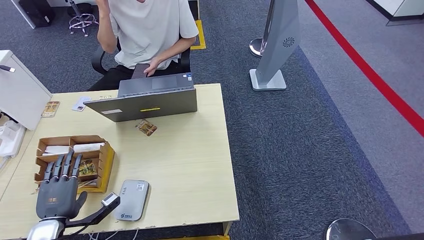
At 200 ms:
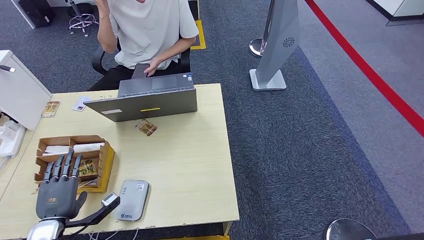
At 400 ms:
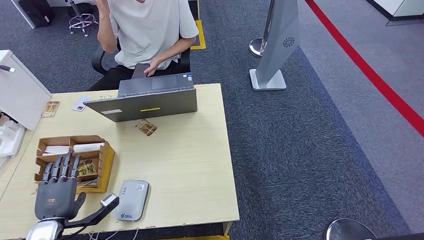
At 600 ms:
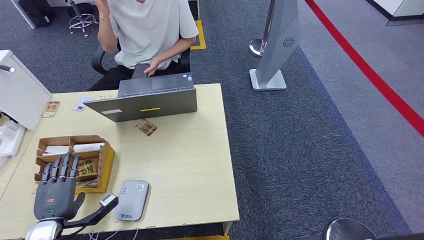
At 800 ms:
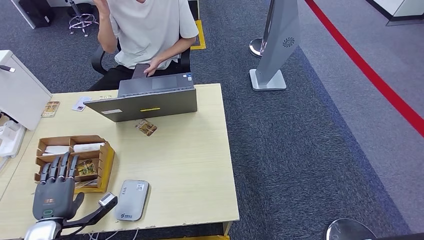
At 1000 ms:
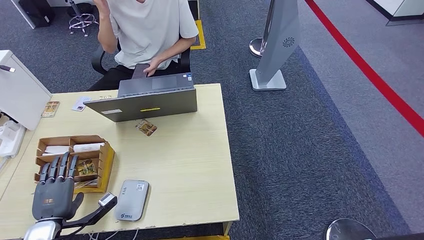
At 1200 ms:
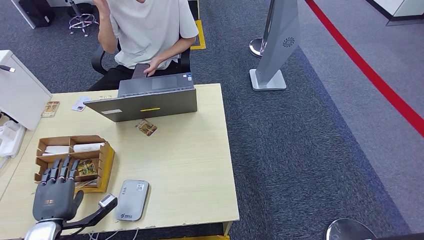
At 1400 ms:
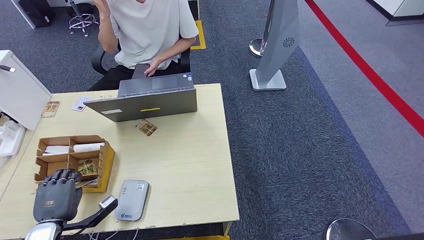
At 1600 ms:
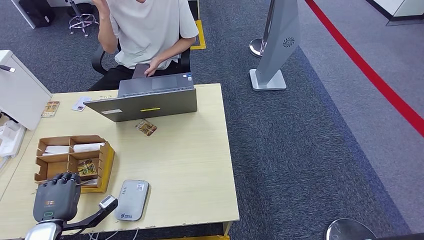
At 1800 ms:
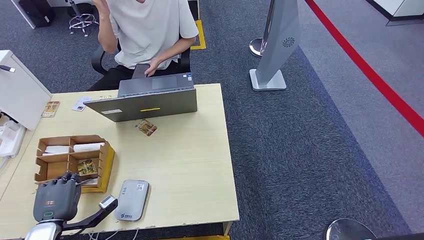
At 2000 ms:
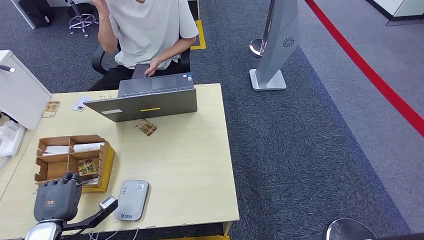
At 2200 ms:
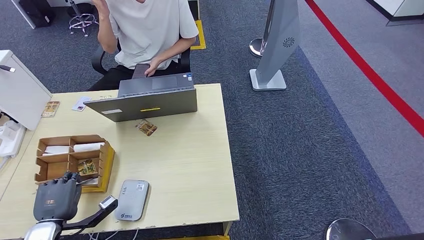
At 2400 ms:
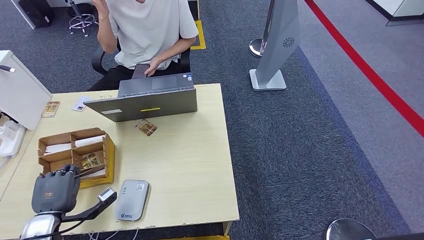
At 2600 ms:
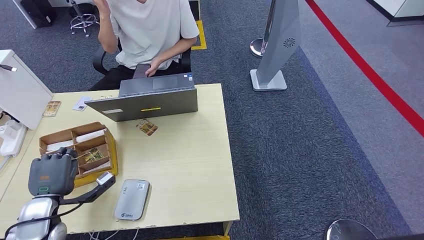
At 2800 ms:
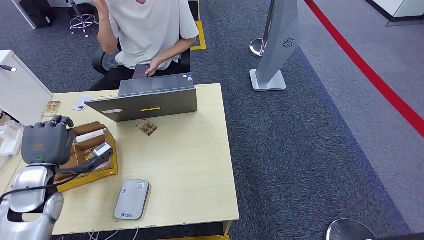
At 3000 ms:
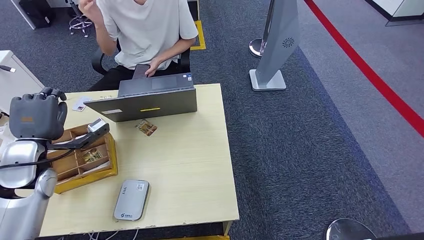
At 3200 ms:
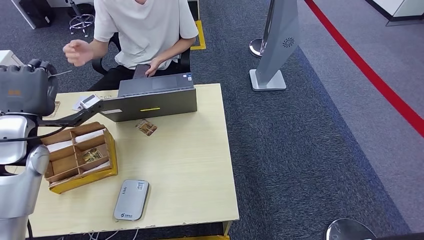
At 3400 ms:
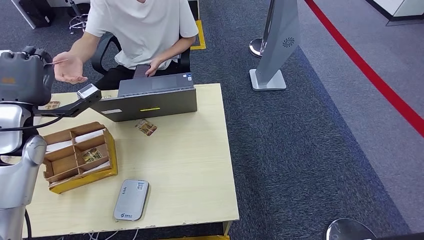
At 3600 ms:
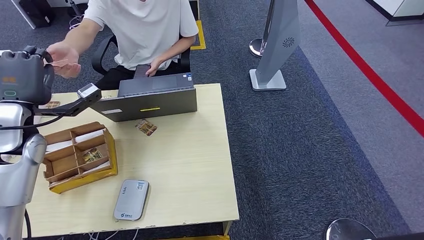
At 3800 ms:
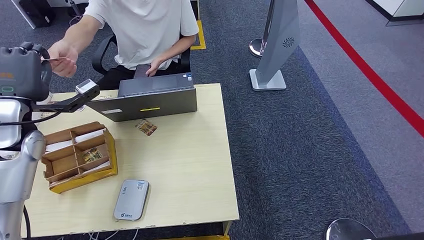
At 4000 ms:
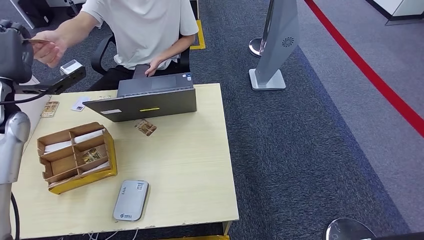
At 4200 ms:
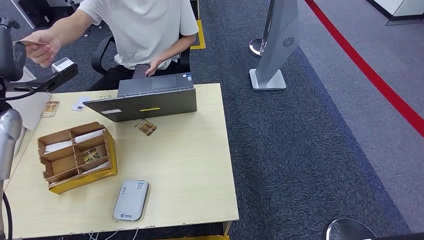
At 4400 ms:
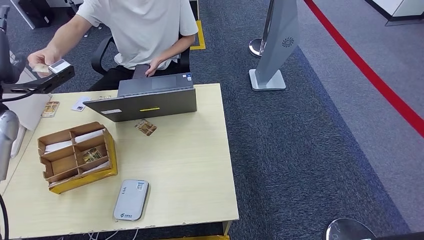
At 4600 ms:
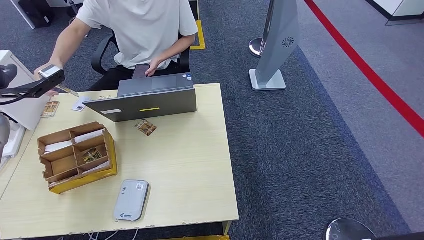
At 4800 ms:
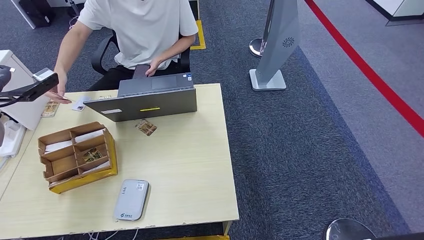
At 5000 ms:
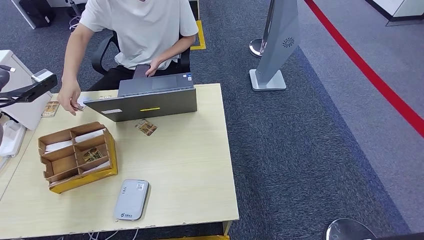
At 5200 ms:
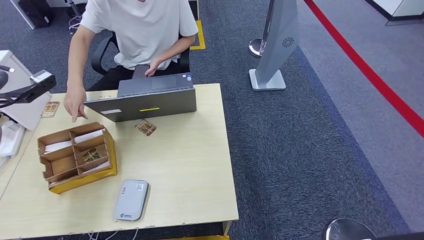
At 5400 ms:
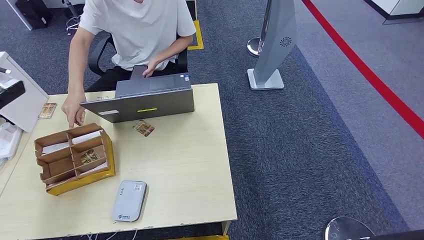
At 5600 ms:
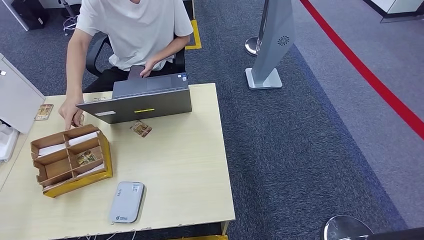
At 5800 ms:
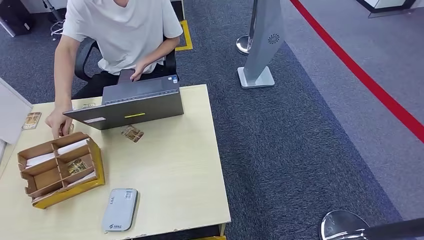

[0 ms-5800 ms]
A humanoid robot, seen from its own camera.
Step, 1000 ms to 3000 ms: Pick up the room key from the key card box.
Step, 3400 ms to 5600 ms: Hand the room key to the person.
0 ms to 1400 ms: Both hands stay put.
1400 ms to 2800 ms: The left hand travels upward and forward by some 15 cm.
2800 ms to 4400 ms: The left hand travels upward and forward by some 20 cm.

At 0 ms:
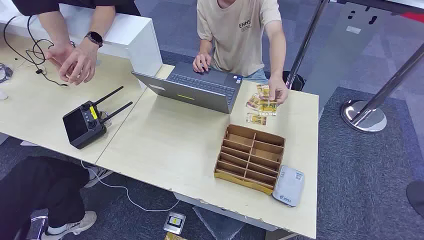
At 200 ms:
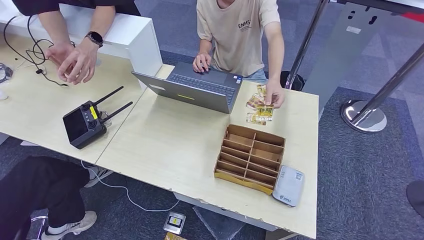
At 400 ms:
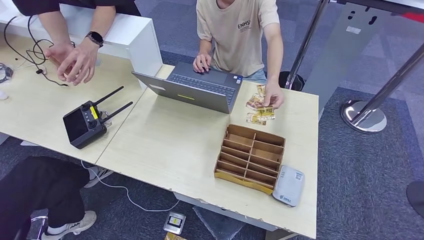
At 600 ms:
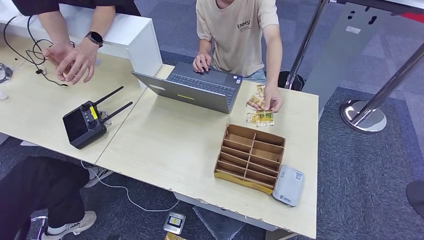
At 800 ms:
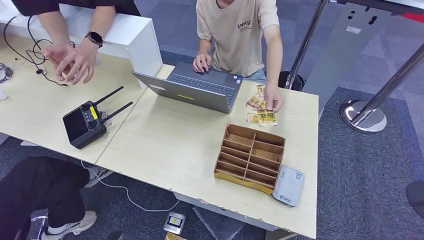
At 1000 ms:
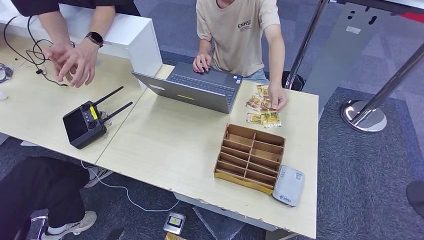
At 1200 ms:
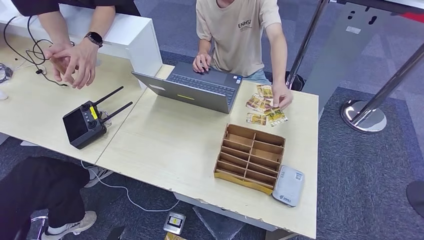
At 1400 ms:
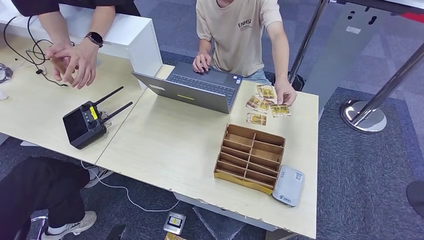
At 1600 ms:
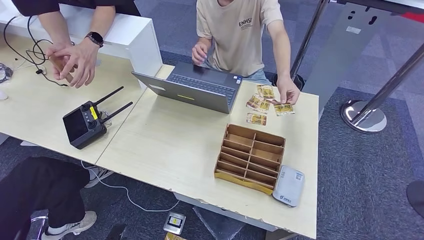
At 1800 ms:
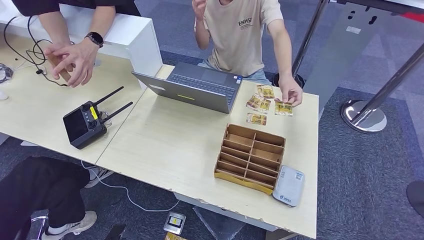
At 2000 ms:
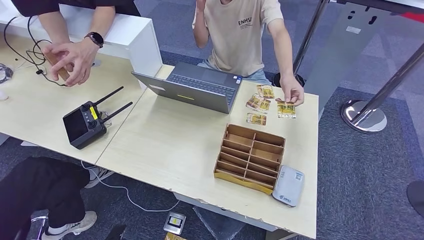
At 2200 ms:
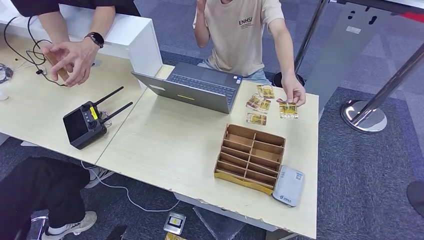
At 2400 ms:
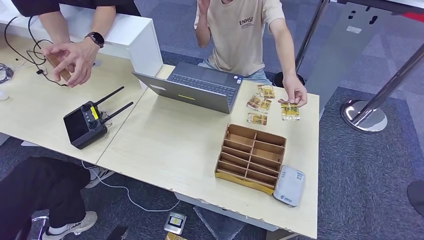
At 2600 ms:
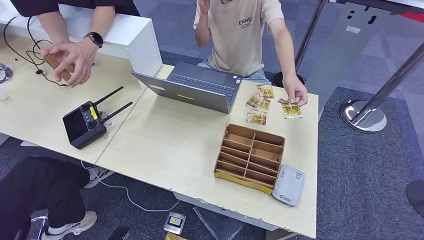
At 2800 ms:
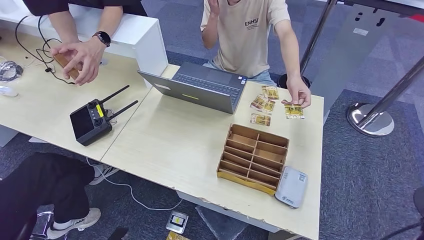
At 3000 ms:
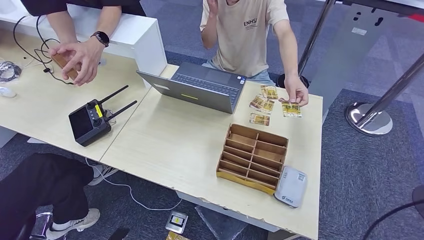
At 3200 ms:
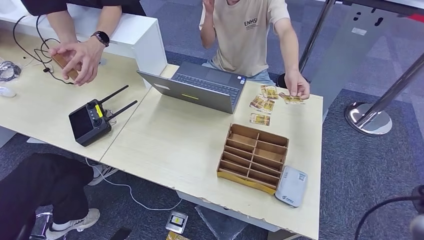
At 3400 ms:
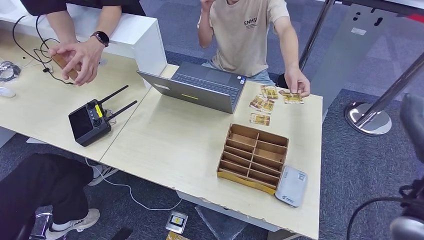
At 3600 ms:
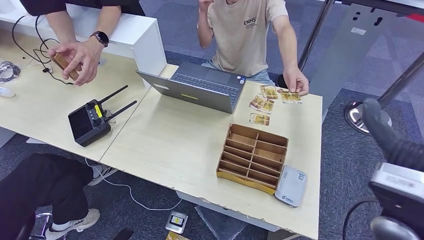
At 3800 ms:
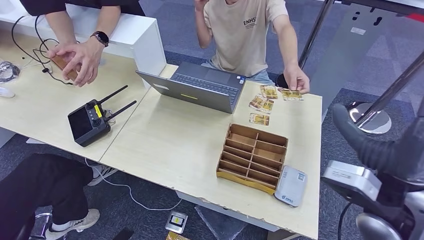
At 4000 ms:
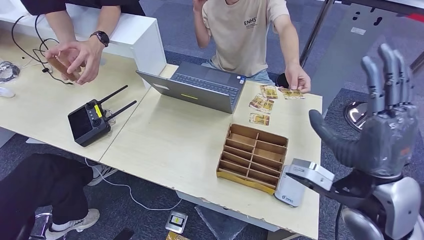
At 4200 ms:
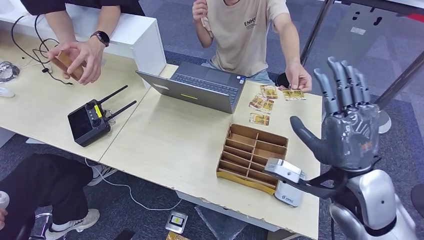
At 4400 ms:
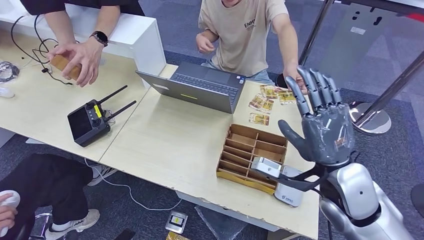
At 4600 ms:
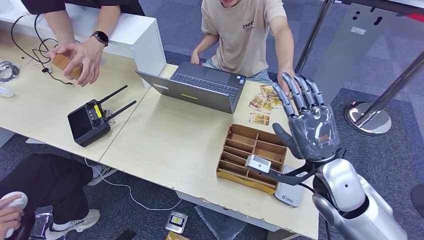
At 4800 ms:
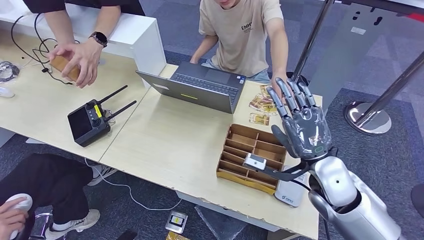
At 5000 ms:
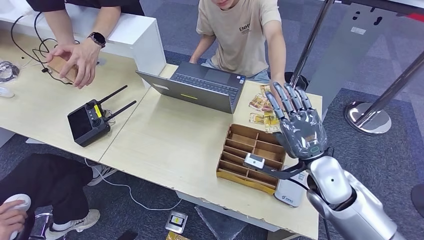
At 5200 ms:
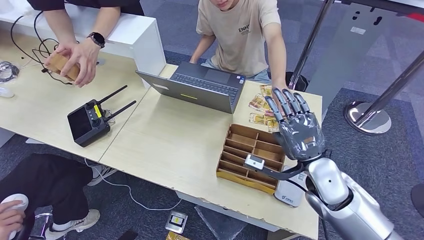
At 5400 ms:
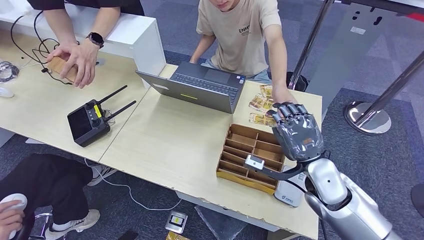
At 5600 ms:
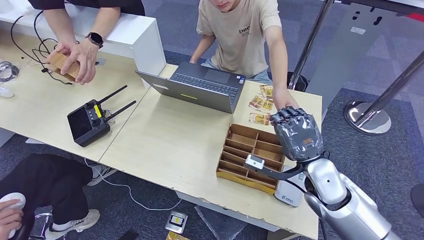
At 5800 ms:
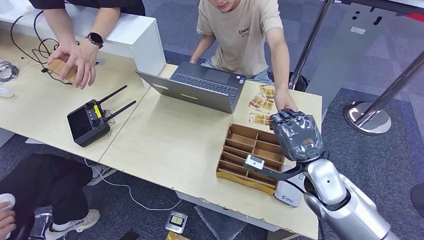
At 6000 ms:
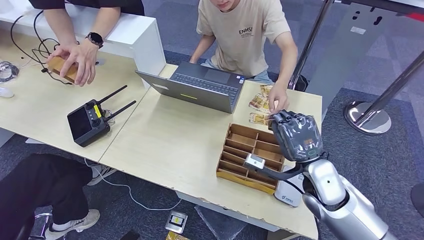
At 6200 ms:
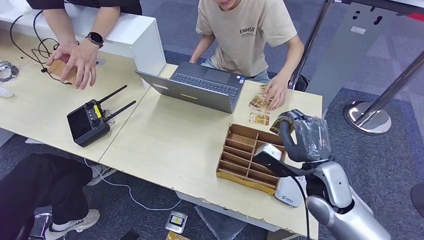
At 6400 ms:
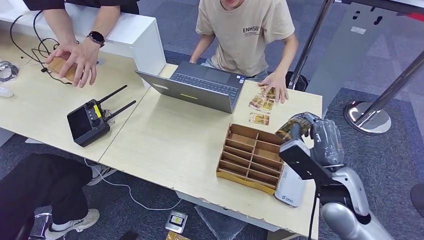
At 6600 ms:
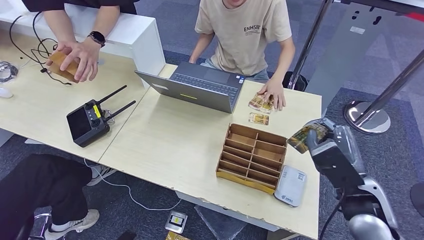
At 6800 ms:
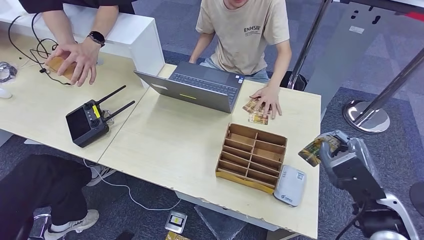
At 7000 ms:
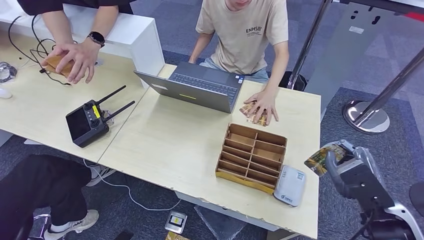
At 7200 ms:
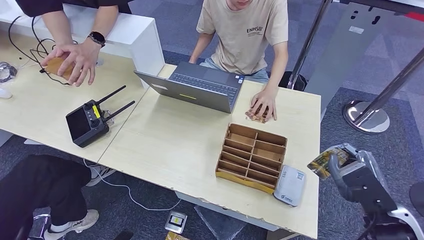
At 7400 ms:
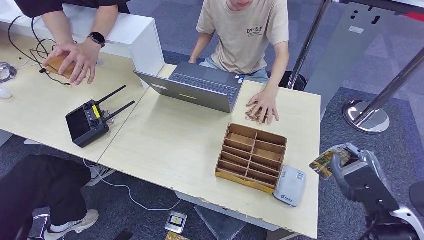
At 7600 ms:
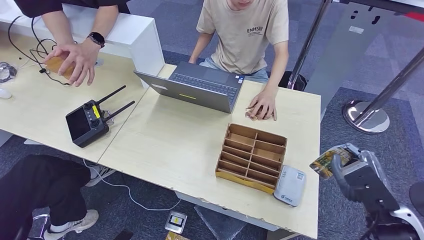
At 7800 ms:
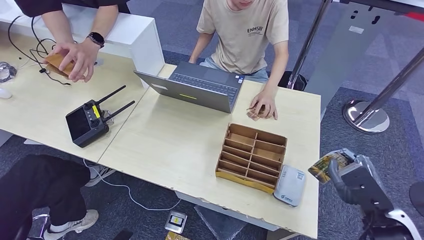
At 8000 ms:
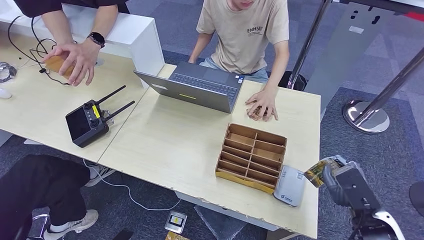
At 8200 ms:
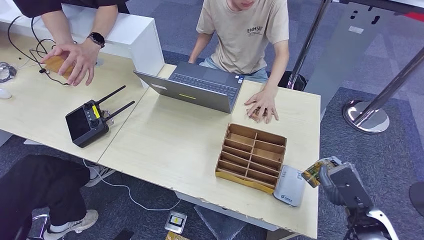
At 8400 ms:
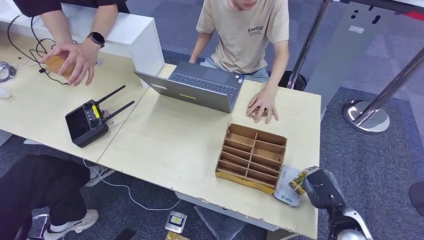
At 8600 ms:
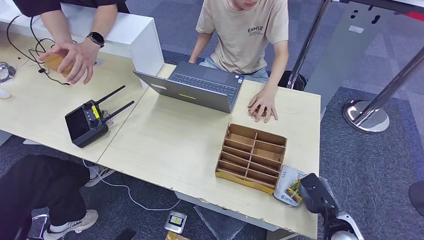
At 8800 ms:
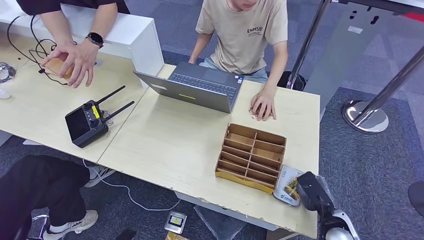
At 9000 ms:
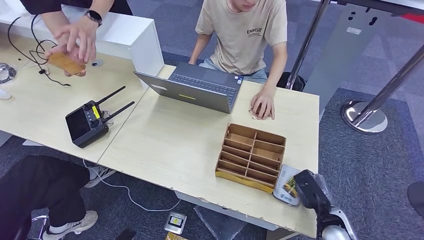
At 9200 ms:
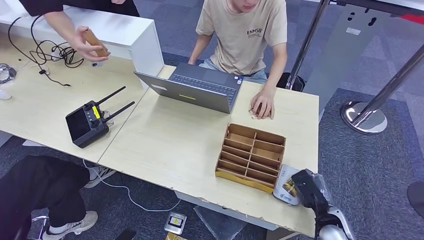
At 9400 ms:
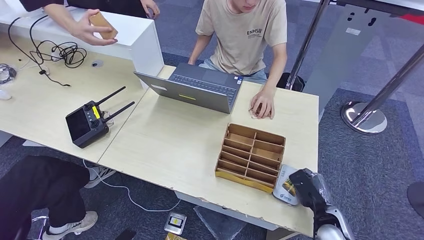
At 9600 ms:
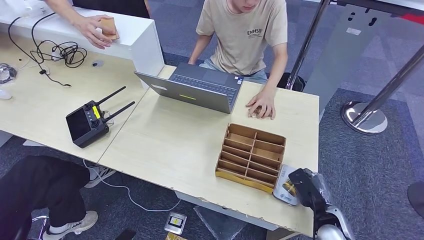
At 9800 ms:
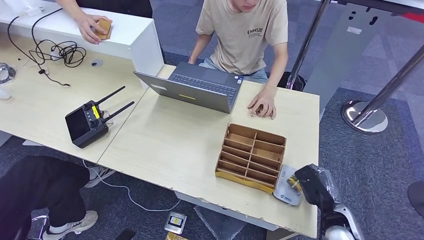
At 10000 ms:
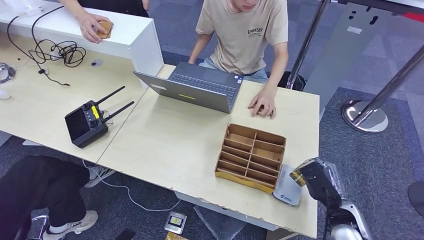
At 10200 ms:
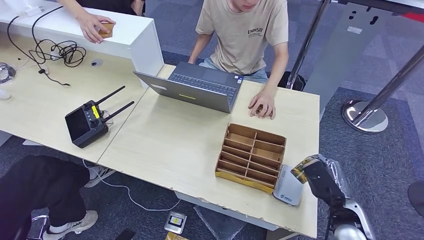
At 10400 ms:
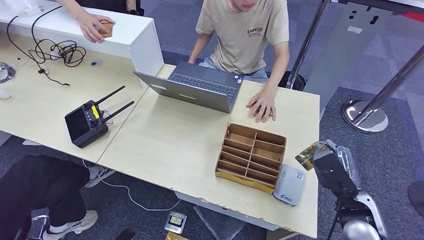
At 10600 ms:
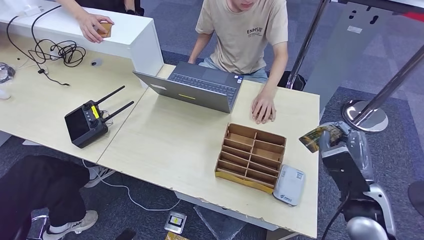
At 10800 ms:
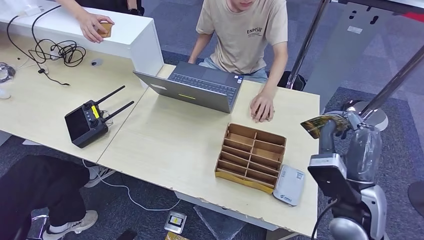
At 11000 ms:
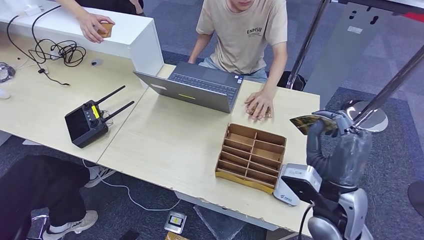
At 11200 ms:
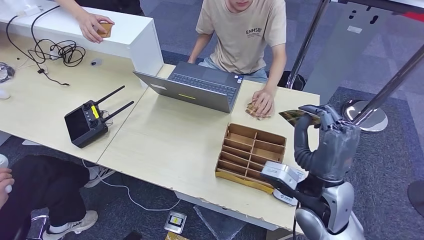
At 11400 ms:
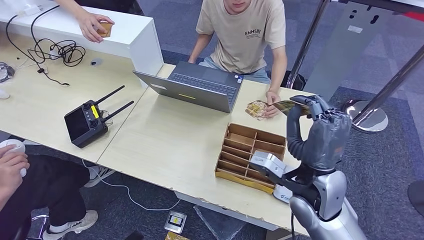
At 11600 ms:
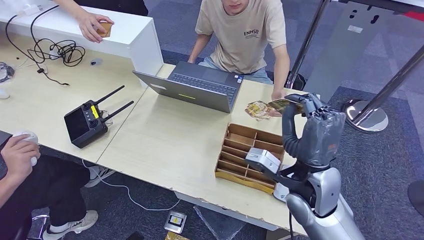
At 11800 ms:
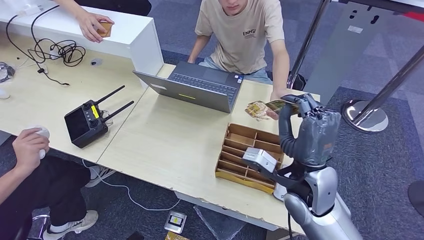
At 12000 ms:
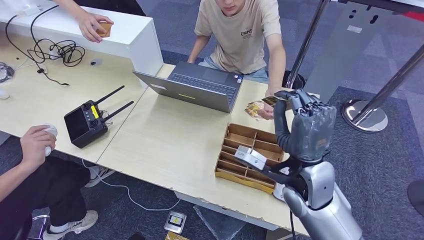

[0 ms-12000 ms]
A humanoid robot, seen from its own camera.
Step, 0 ms to 6200 ms: Take the ID card from the person's hand.
Step, 6400 ms to 9200 ms: Place the ID card on the card reader.
3000 ms to 4400 ms: The right hand heads to the left, covering roughly 20 cm.
4400 ms to 6000 ms: The right hand travels downward by about 10 cm.
7600 ms to 9000 ms: The right hand travels downward by some 20 cm.
9000 ms to 10400 ms: The right hand heads upward, covering about 10 cm.
10400 ms to 12000 ms: The right hand goes about 20 cm to the left, upward and forward.
